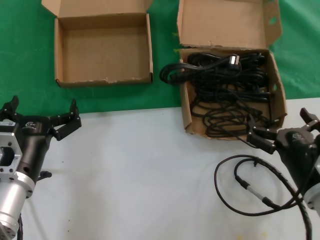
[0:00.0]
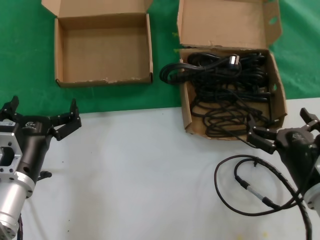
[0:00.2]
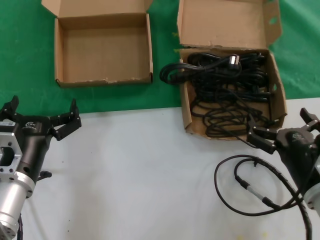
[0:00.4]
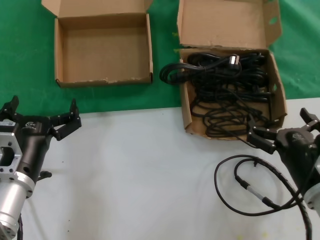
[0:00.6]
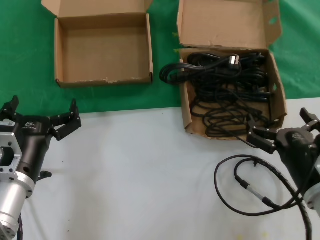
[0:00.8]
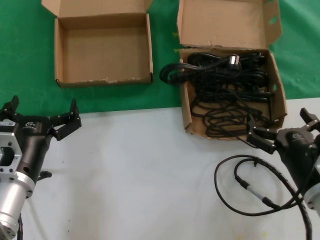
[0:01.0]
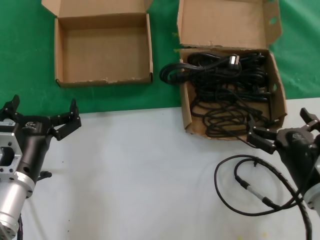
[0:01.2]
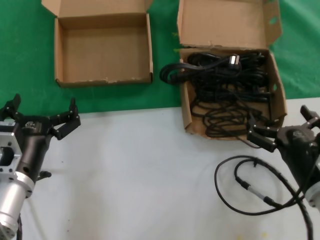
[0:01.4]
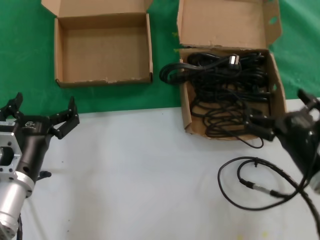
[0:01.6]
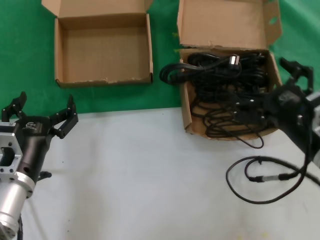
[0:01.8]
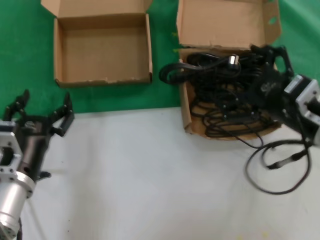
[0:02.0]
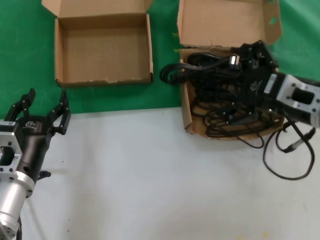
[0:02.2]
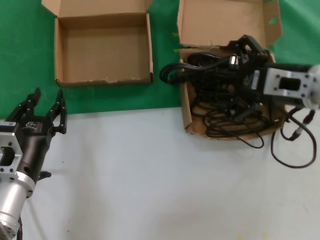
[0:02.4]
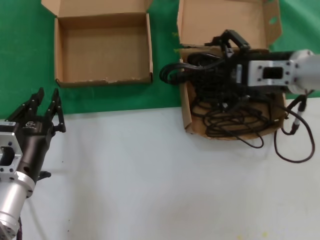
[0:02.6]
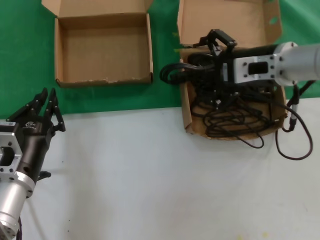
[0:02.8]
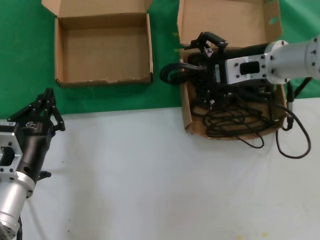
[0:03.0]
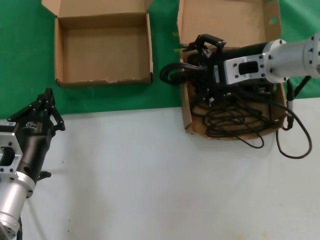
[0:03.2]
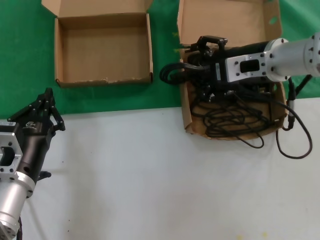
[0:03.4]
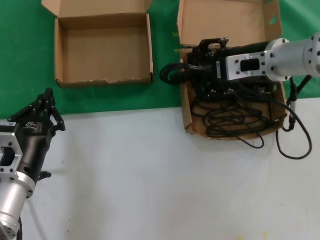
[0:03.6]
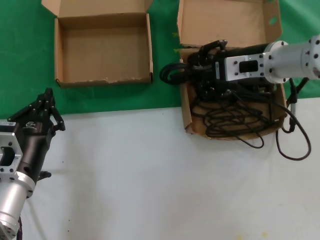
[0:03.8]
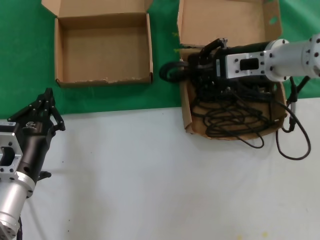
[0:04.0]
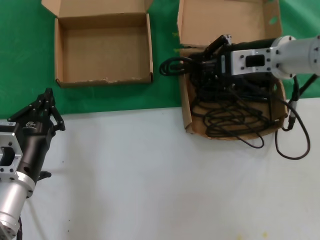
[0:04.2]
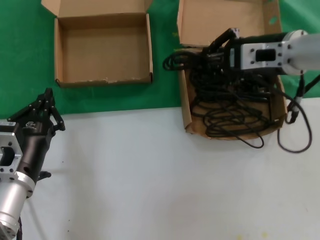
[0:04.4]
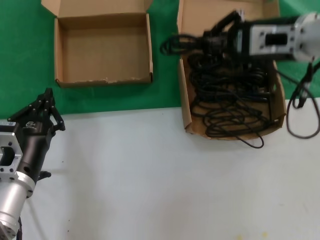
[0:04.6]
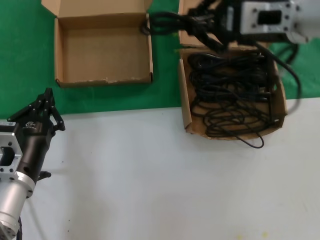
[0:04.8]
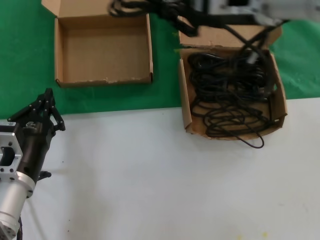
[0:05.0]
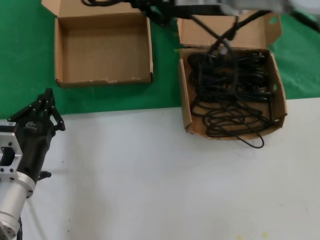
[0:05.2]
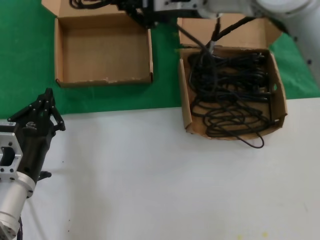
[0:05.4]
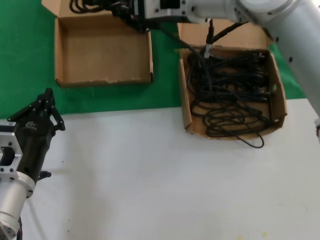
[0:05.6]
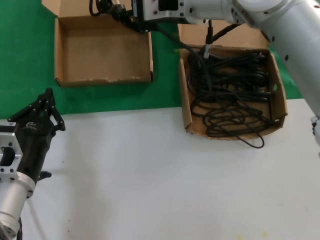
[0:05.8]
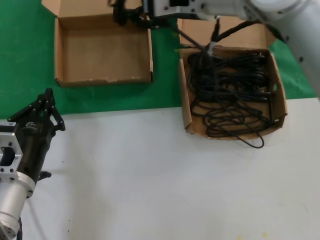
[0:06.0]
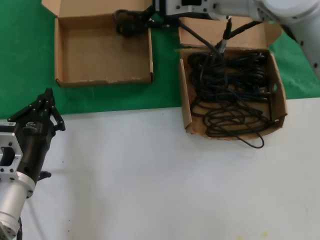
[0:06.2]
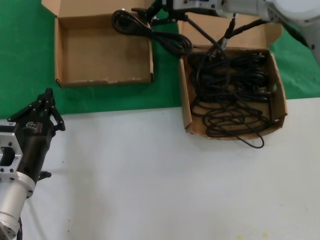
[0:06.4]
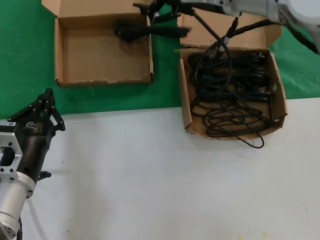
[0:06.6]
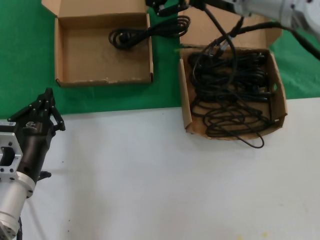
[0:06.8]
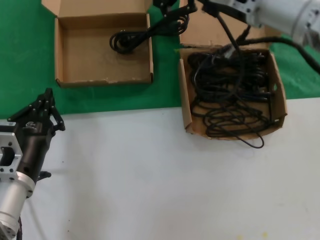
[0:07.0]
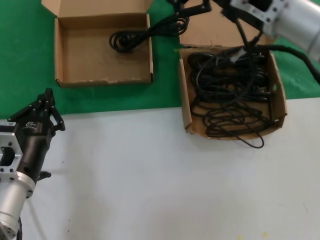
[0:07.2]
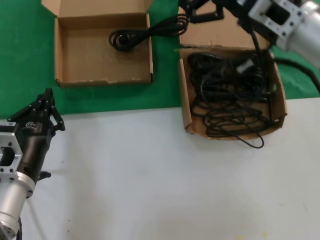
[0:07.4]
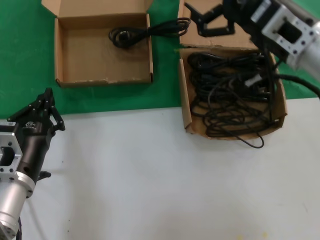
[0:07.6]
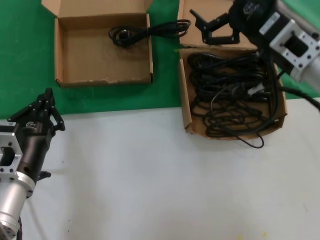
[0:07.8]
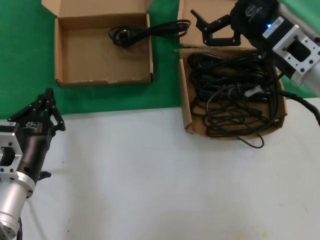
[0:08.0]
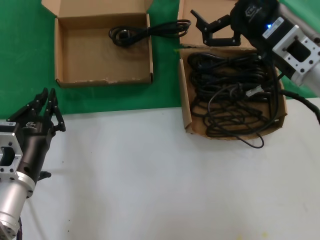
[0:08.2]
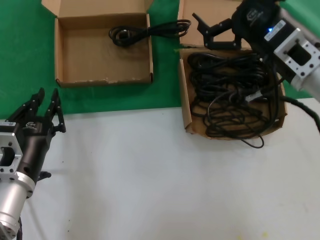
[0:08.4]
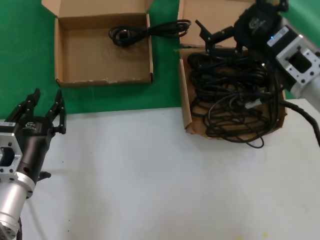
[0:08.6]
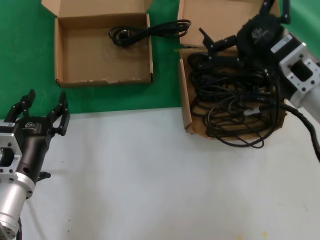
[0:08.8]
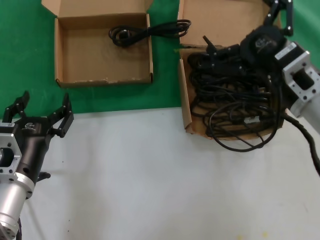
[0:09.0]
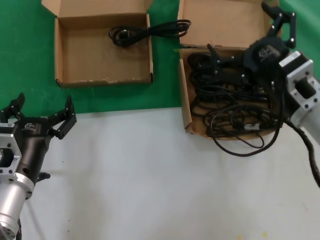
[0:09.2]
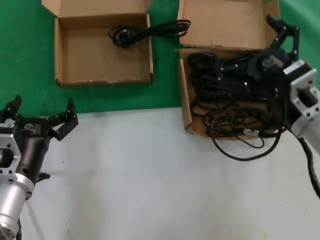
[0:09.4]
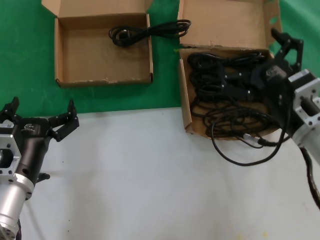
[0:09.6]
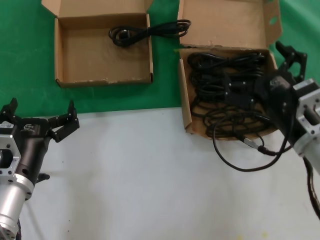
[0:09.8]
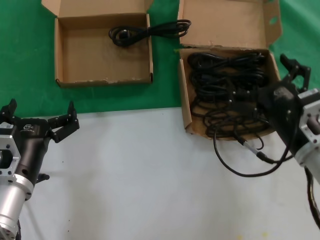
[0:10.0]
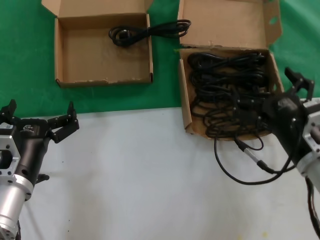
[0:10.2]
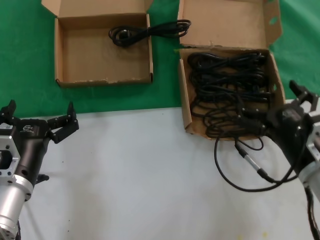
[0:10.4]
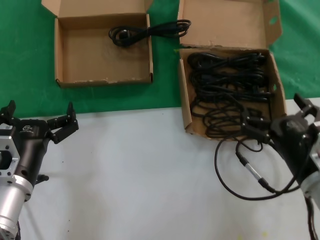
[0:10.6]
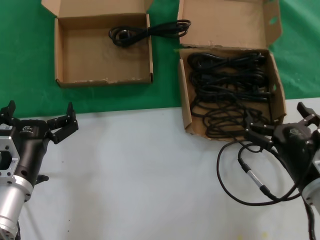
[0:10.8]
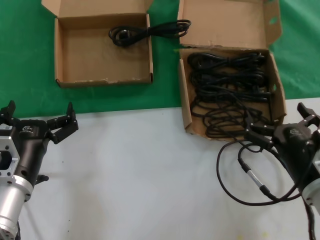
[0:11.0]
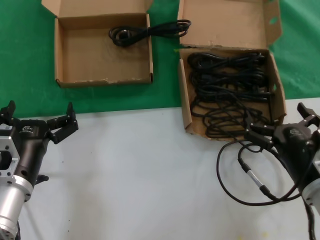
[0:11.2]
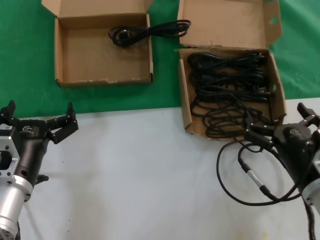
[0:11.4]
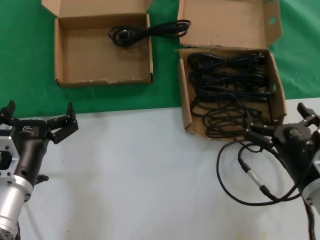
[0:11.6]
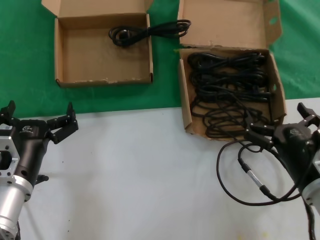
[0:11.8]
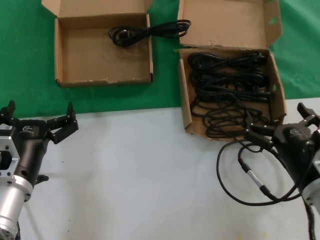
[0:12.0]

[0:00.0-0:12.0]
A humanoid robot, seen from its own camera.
Task of the whole recording: take the parts from the box containing them and put them into an empty box.
Step, 0.0 to 3.8 s: Grasp the data cable.
Step, 4.2 to 6.4 s: Place the data cable in the another box.
0.0 to 1.6 s: The hands move only a little.
1.6 to 3.0 s: The right hand heads upward and forward, covering approximately 25 cm.
3.0 to 4.4 s: The hands move only a little.
4.4 to 6.0 s: The right hand shifts some 15 cm to the left, upward and forward.
6.0 to 7.6 s: The right hand heads to the right, backward and downward, covering approximately 20 cm.
7.6 to 9.0 s: The right hand is displaced downward by about 10 cm.
9.0 to 10.4 s: The right hand shifts some 10 cm downward and backward.
10.4 to 12.0 s: The hands move only a little.

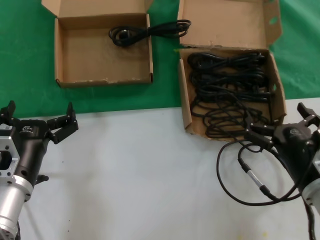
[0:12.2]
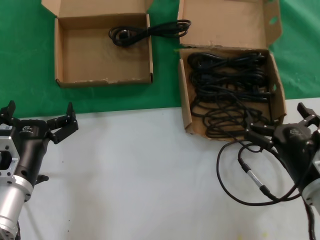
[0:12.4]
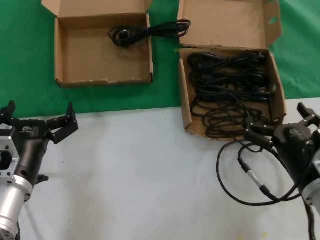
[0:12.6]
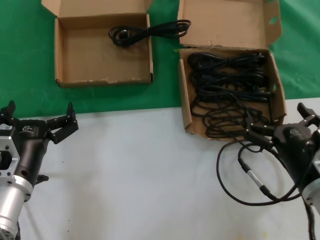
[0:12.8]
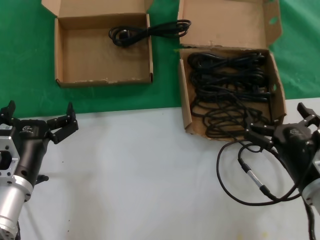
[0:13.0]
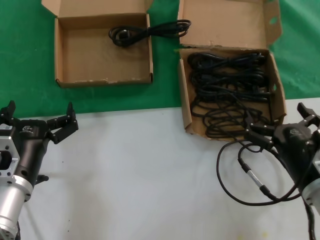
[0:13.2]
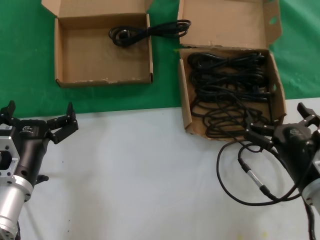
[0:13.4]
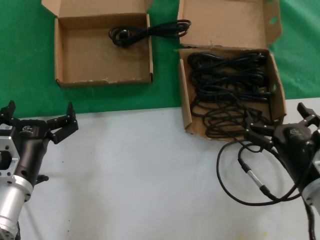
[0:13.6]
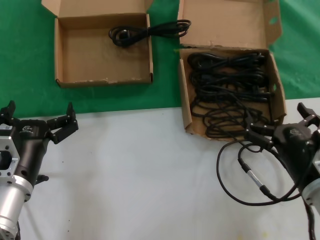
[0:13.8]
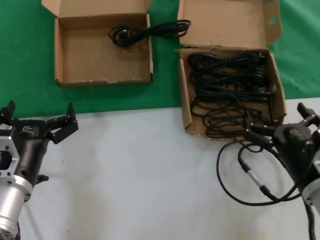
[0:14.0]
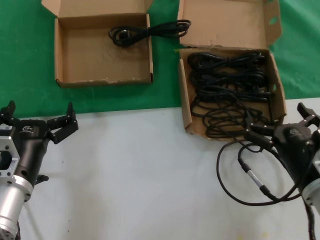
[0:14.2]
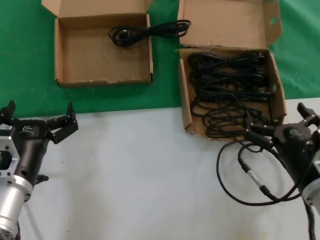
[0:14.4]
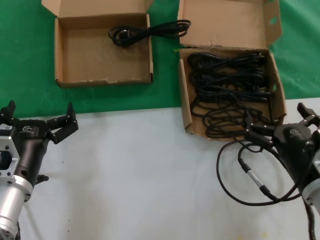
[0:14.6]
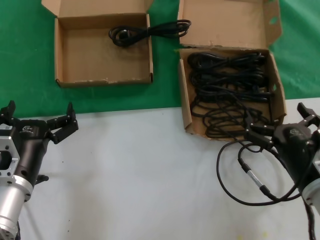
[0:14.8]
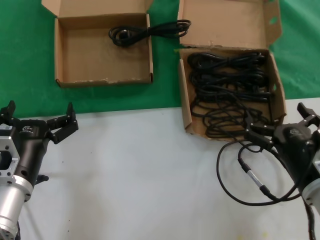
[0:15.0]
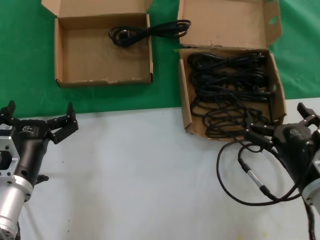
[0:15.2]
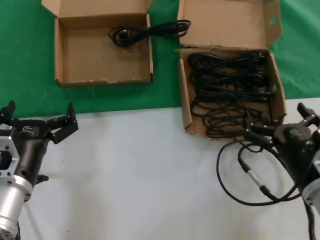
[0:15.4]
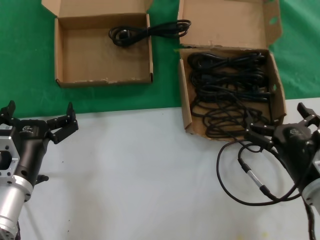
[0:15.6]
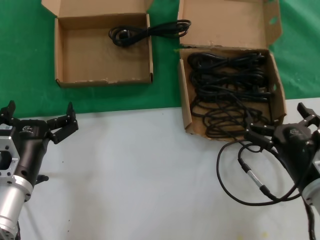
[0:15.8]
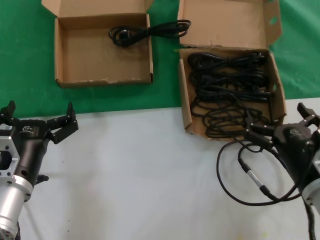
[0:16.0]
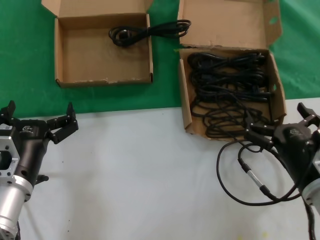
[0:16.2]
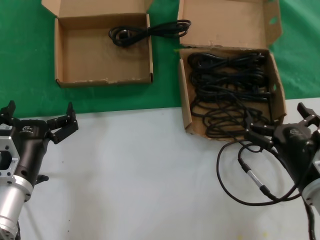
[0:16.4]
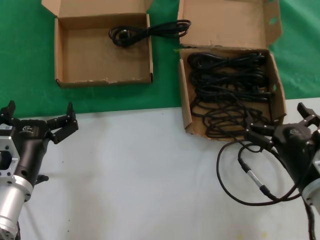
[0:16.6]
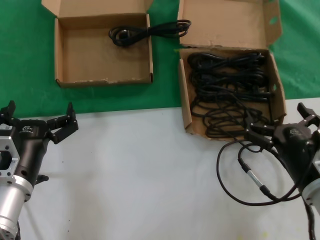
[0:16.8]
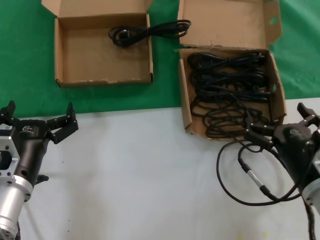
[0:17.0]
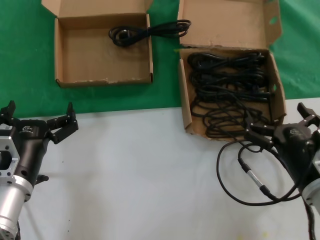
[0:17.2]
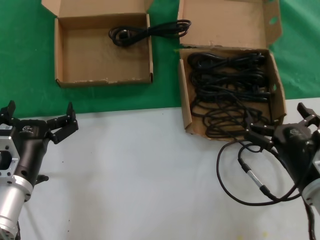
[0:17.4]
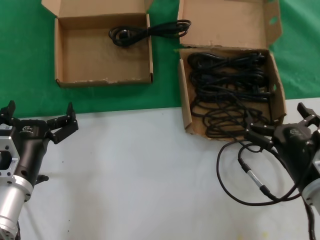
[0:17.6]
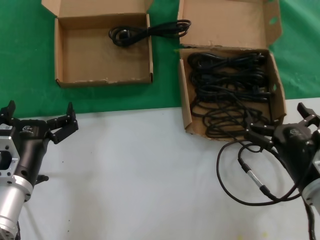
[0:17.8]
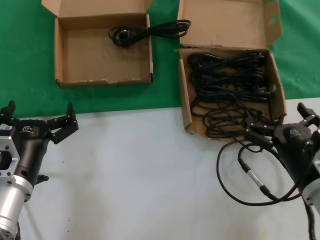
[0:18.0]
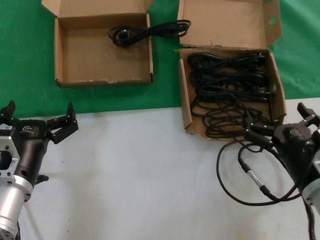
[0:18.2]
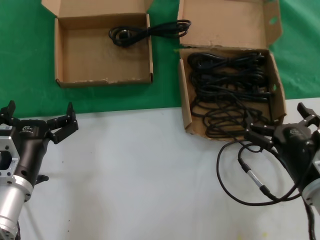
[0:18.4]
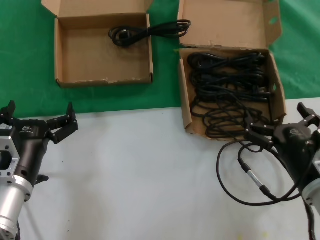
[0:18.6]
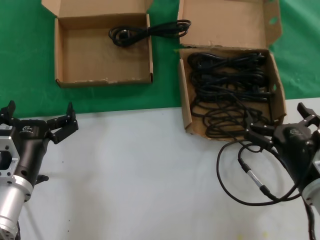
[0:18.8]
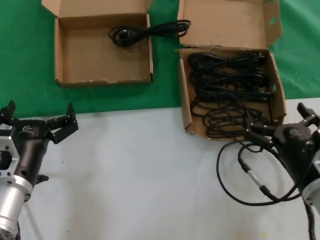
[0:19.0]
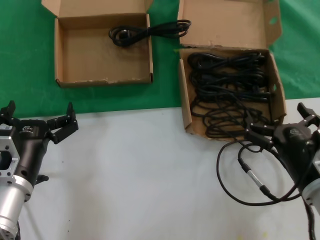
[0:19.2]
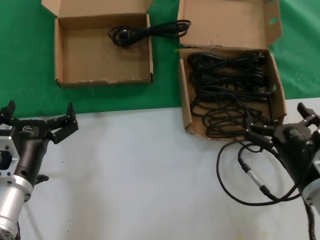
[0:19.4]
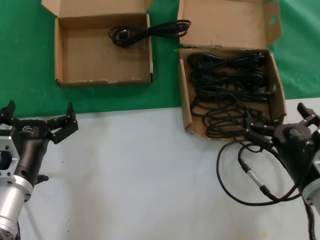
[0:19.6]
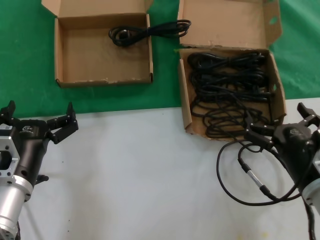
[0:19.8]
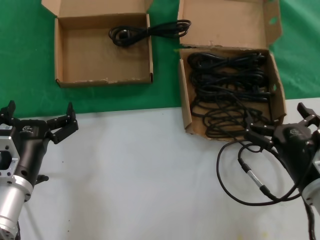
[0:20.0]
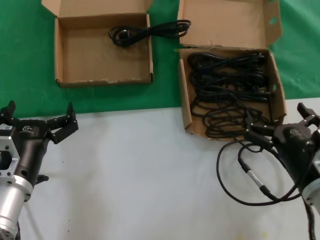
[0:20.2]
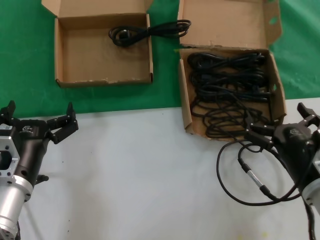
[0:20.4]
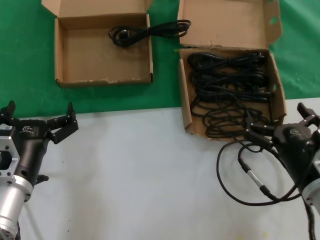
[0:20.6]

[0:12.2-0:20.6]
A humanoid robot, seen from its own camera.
Task of the whole recording: take the parts from the box containing them and put them into an empty box.
12.2 to 20.6 s: Neither hand changes place.

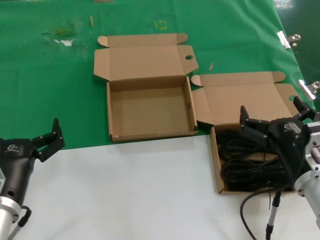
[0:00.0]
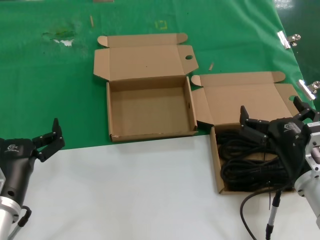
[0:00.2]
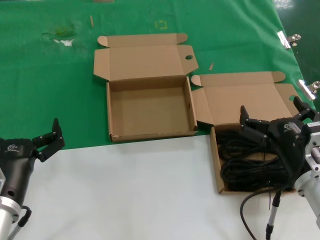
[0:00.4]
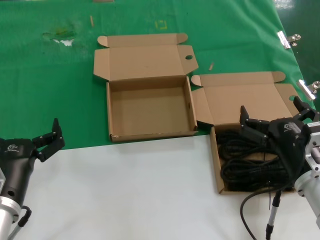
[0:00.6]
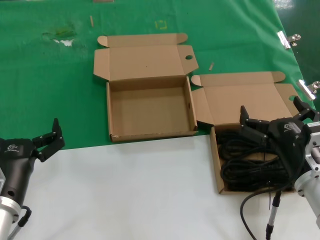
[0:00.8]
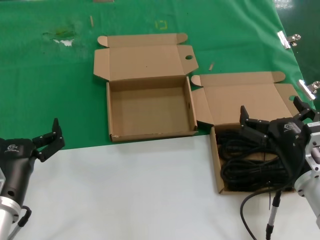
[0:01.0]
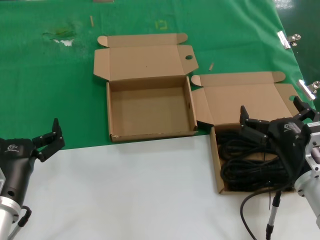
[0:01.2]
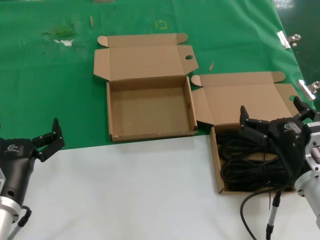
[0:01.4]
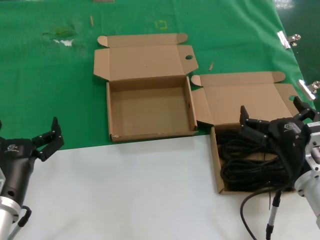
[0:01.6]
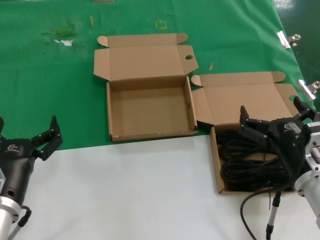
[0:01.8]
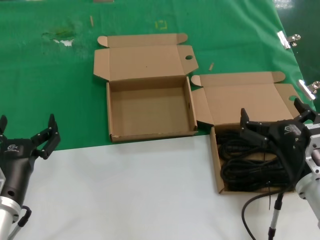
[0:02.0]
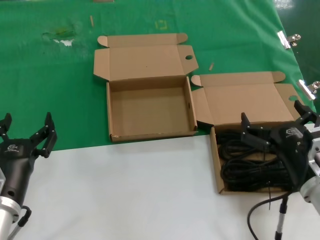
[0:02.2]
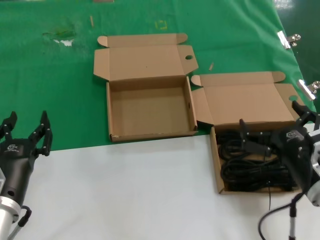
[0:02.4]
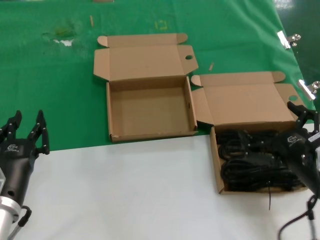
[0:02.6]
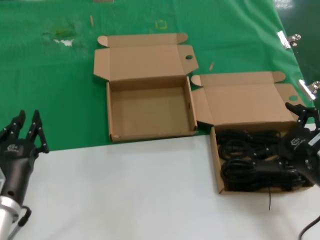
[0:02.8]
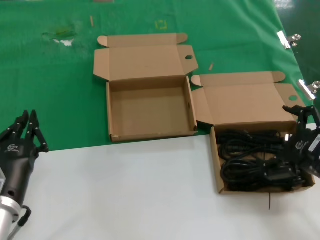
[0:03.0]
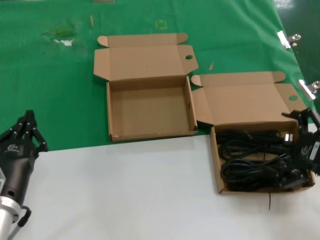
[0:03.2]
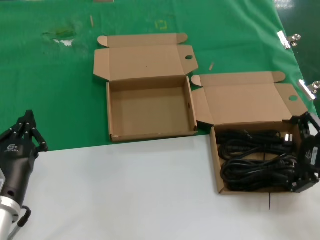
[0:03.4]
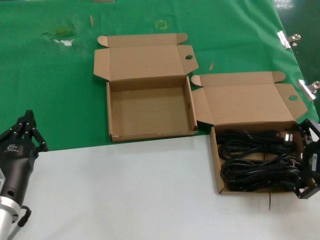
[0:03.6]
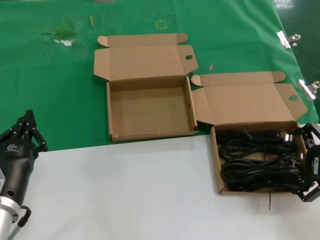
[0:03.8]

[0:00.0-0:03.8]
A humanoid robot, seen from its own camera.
Task of the whole recording: take the parts from the box containing them and put them into an empty box.
0.0 to 1.2 s: The two hands keep their place.
1.2 to 2.6 s: The right hand moves roughly 5 cm.
2.6 to 3.8 s: The right hand heads to the right and upward, covering roughly 10 cm.
